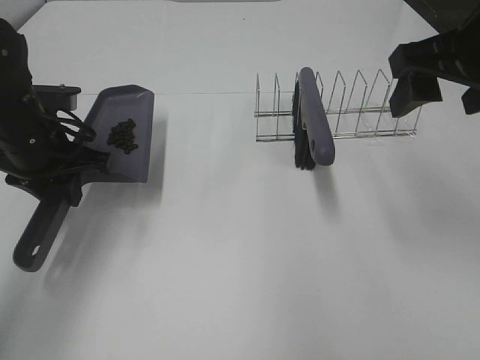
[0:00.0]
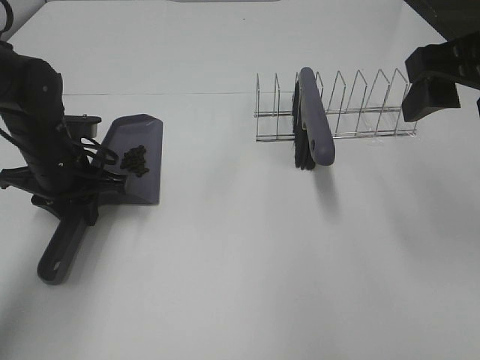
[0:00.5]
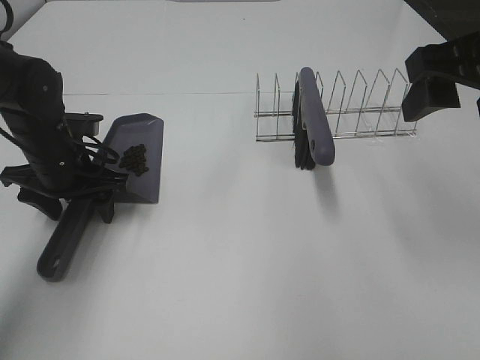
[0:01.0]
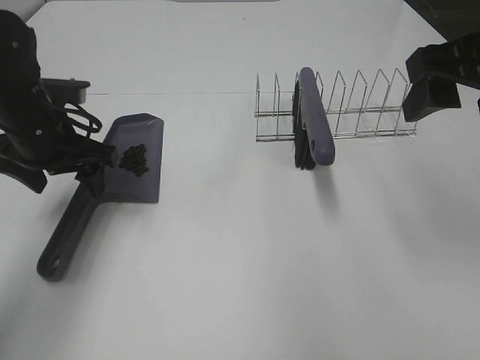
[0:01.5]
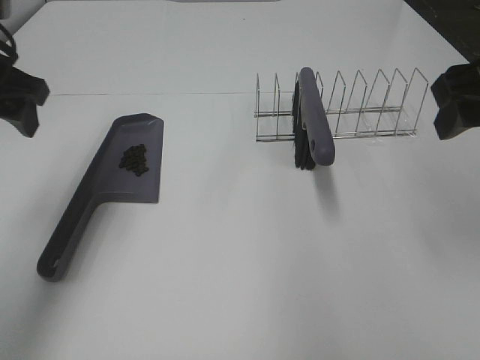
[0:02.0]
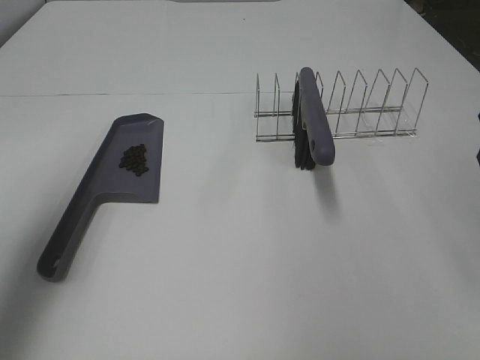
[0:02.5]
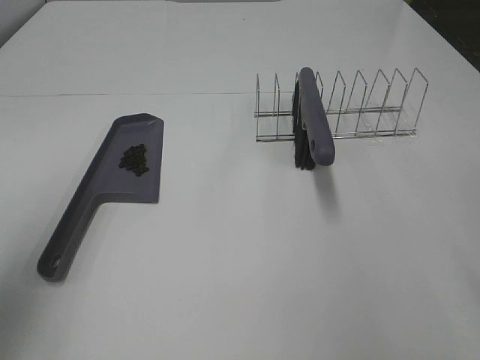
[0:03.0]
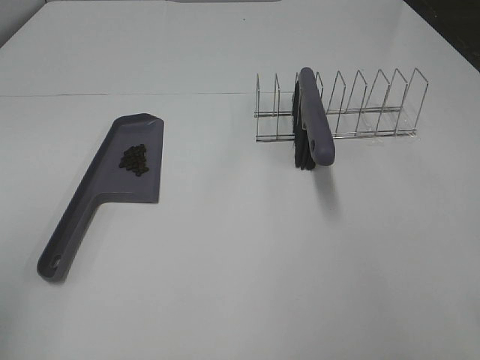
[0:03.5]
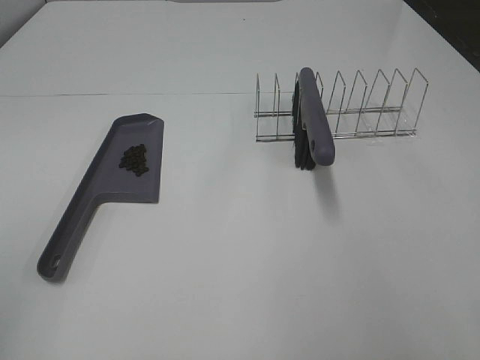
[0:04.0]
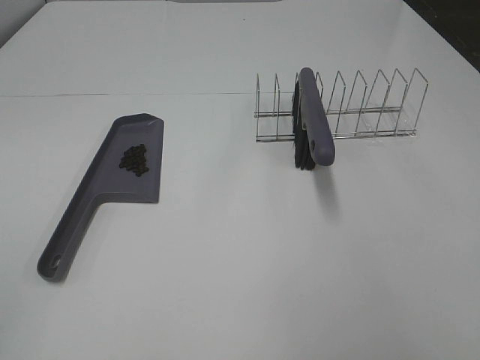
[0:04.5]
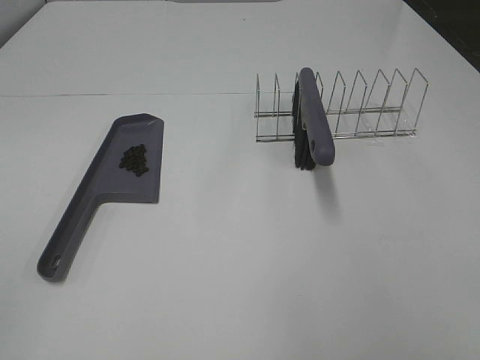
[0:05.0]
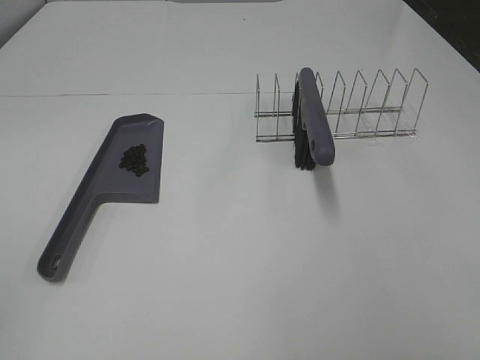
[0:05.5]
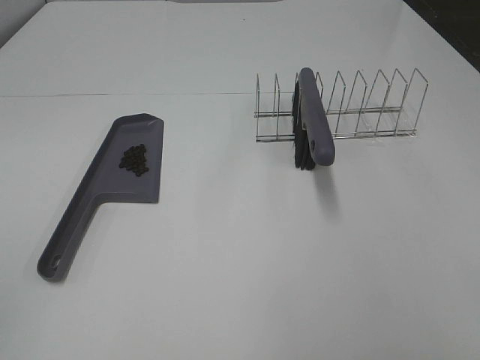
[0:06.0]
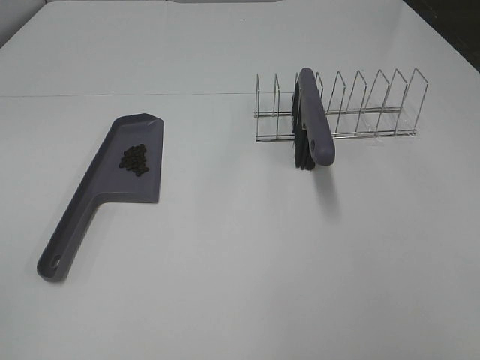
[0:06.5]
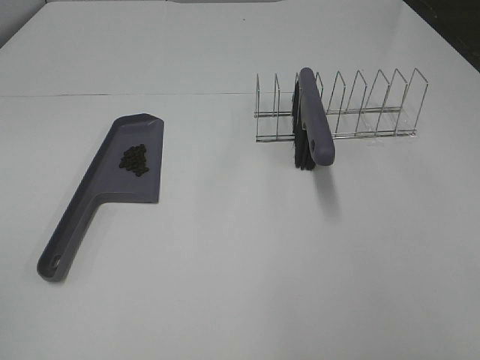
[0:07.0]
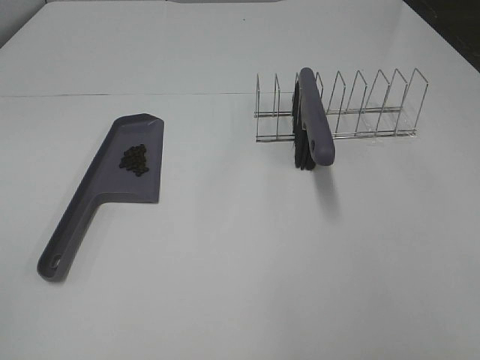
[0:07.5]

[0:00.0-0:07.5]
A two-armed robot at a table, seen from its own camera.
Task of the whole recording: Sweep Coffee Bean.
0:00.0 to 0:02.0: The left gripper travels upward by approximately 10 cm, and opens its fingers.
0:02.0 to 0:04.0: The left gripper heads backward, covering approximately 30 cm. The right gripper is displaced backward by approximately 15 cm.

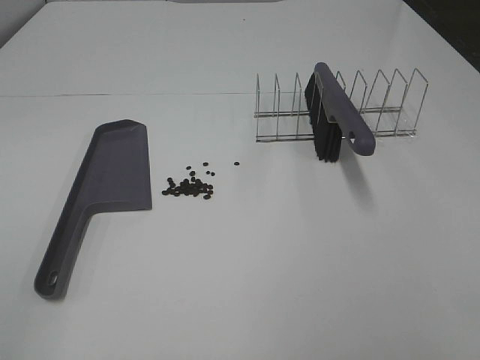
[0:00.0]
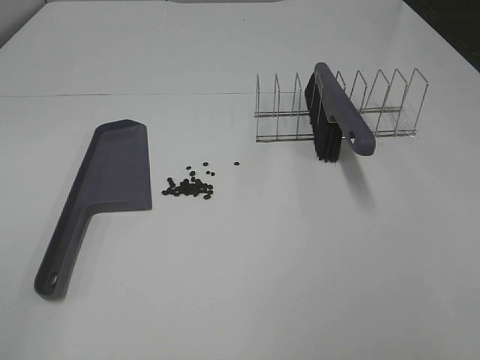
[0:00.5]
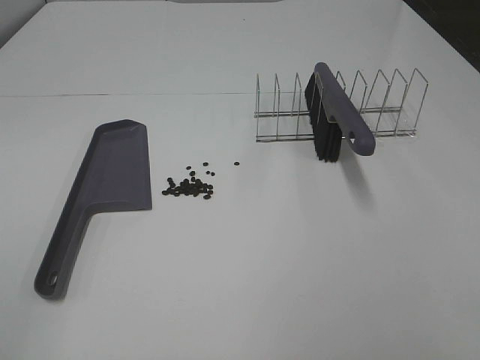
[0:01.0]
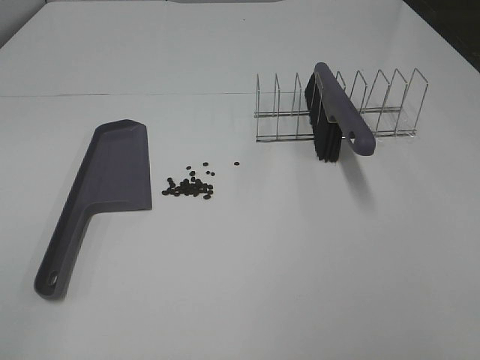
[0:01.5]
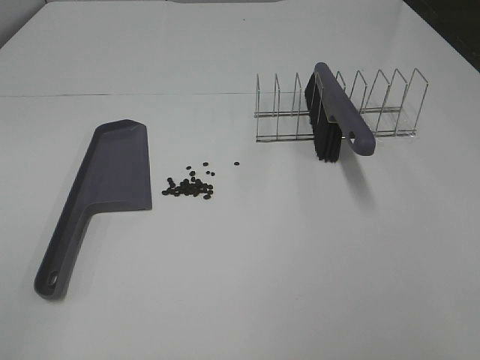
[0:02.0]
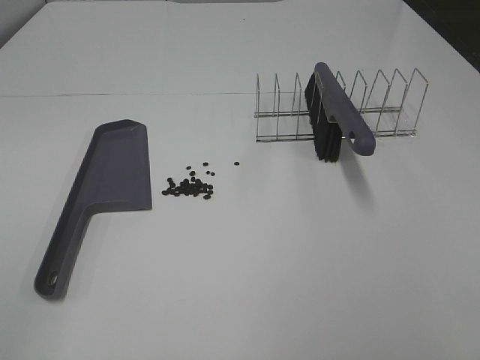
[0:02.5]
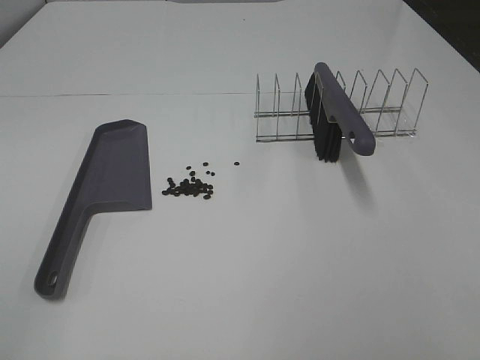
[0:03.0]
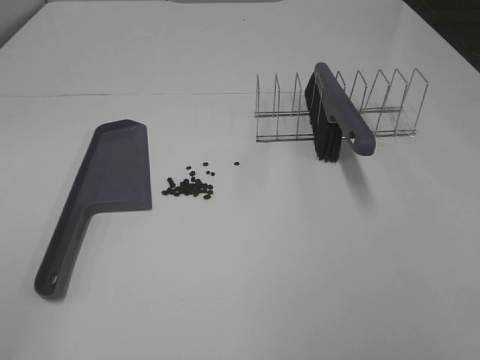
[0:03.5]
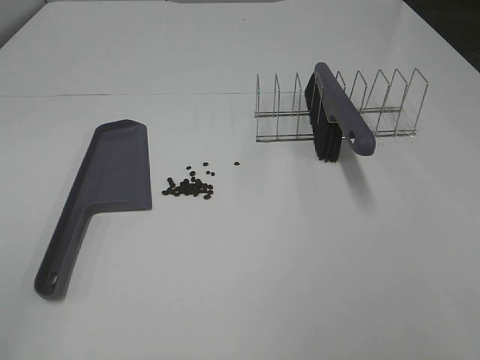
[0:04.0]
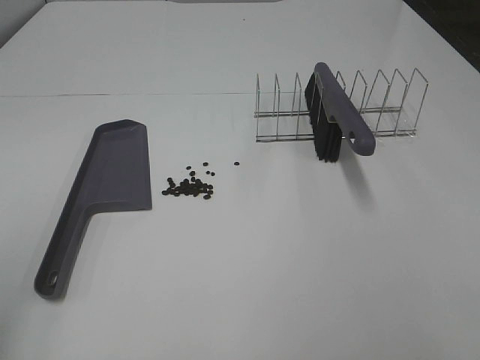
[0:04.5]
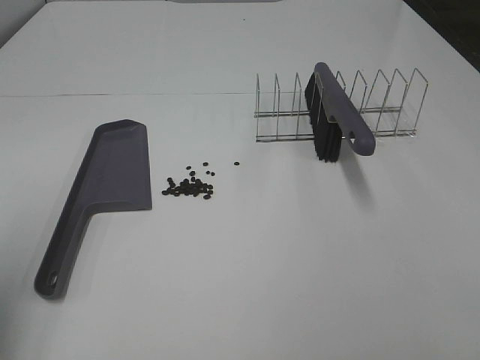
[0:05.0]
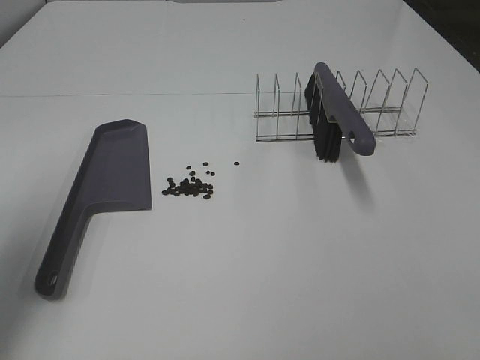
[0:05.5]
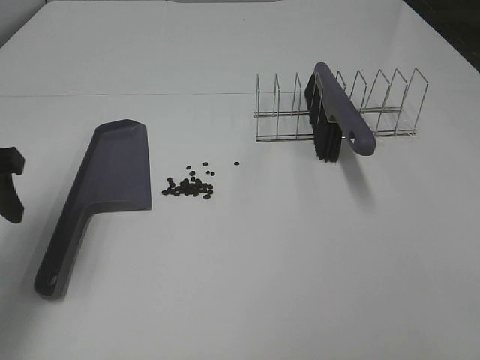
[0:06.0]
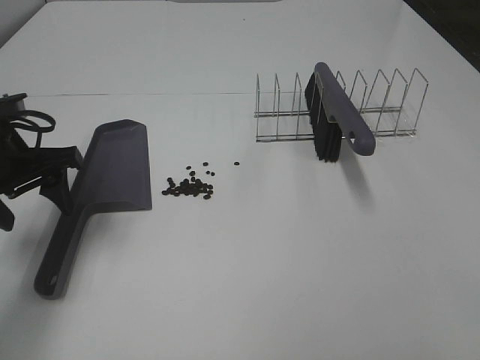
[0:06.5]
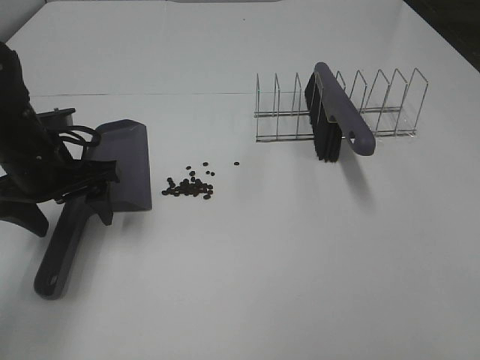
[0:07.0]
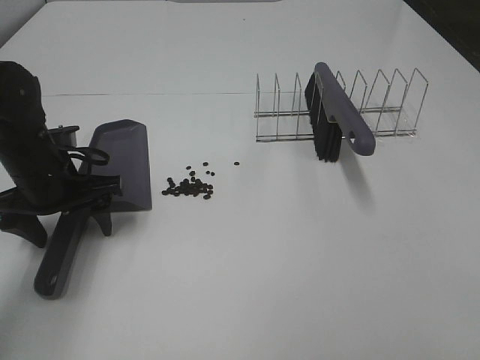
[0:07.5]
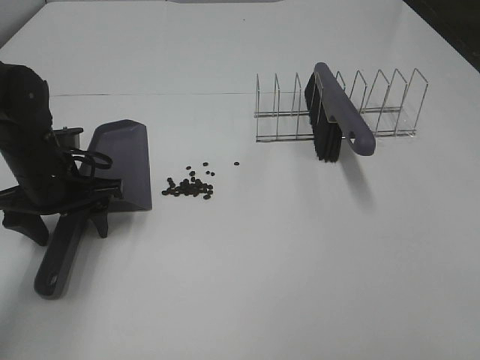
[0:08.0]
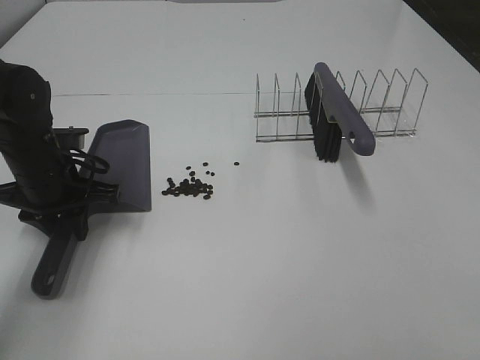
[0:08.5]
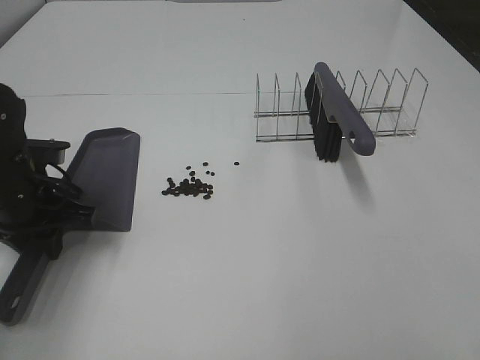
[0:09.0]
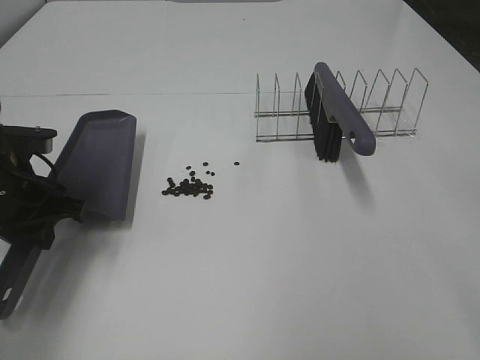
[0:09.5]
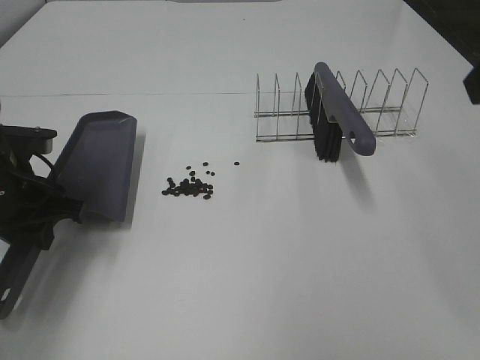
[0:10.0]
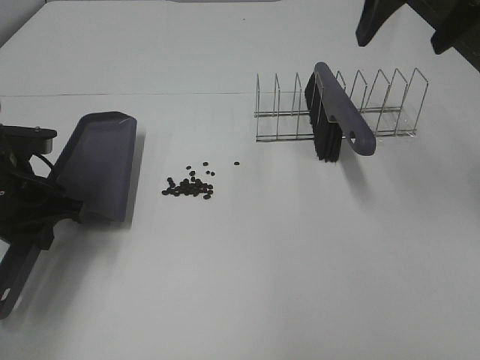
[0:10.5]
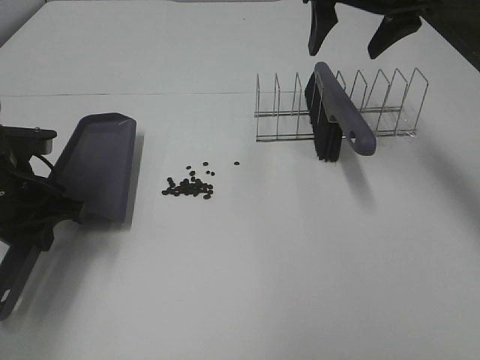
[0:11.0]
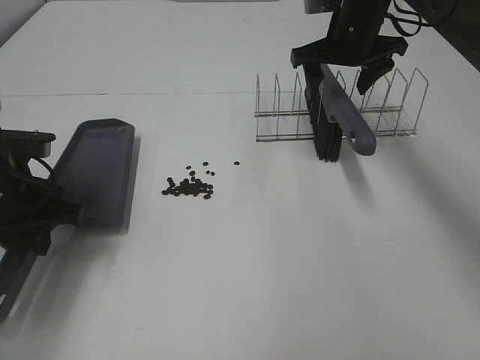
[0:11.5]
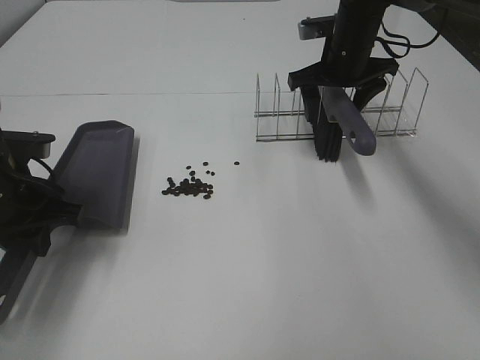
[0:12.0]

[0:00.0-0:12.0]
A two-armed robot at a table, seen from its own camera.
Task of the whole recording: Sweep Coffee Bean.
Step, 0:00.0 to 0:08.5: Left hand: grab the dustpan.
0:00.0 to 0:02.0: Both grippers stay about where they are.
0:04.0 to 0:06.0: The left gripper heads forward, covering approximately 25 cm.
0:06.0 to 0:08.0: The left gripper is displaced downward, forward and to the right by about 15 cm.
0:08.0 to 0:10.0: The left gripper changes place by roughly 5 cm, and closes up.
0:10.0 to 0:12.0: The right gripper travels forward and downward by some 35 cm.

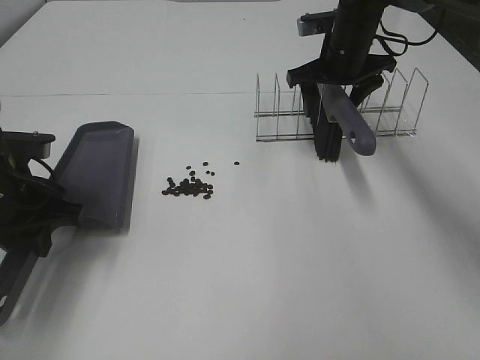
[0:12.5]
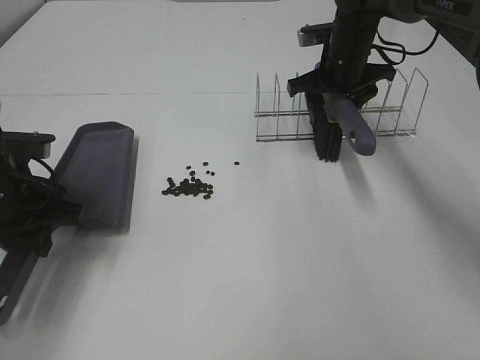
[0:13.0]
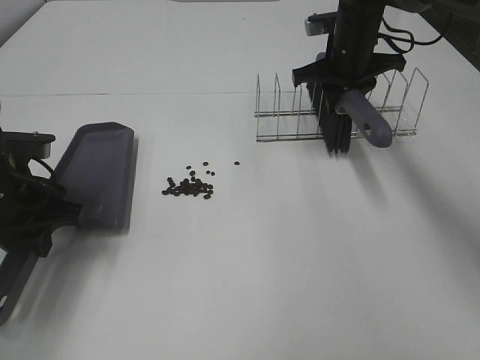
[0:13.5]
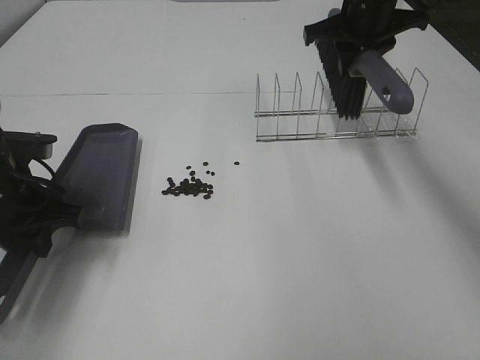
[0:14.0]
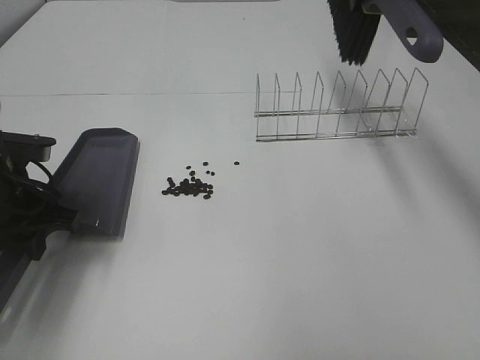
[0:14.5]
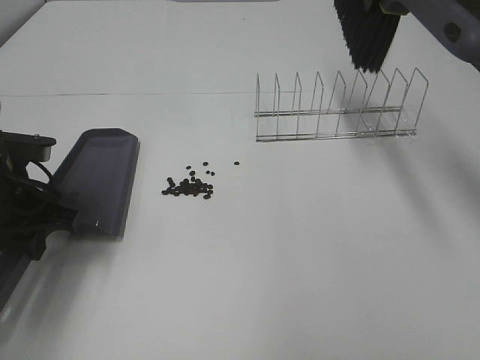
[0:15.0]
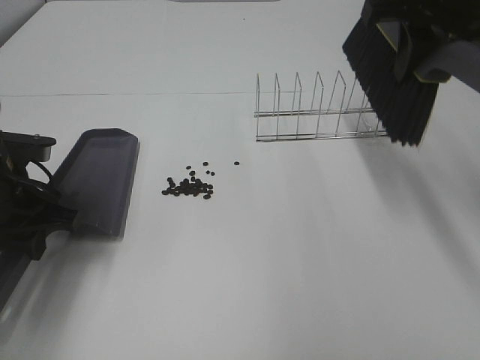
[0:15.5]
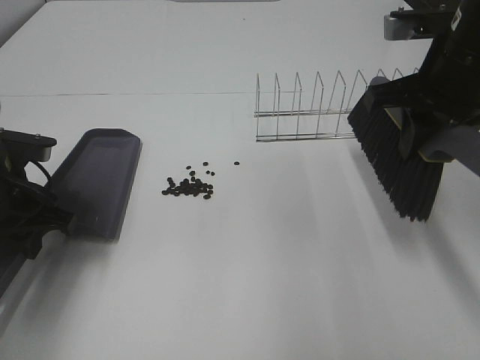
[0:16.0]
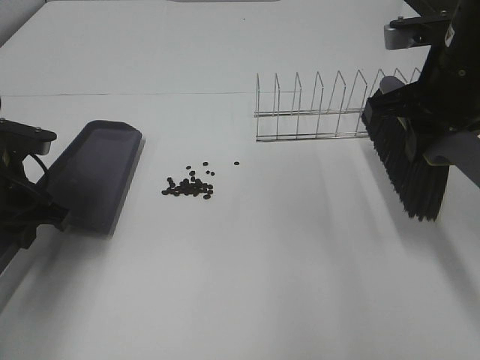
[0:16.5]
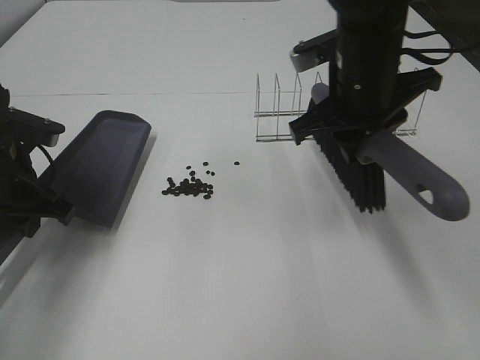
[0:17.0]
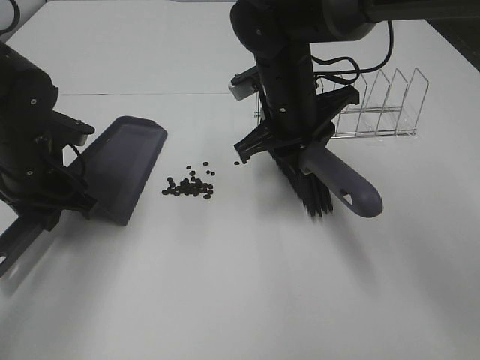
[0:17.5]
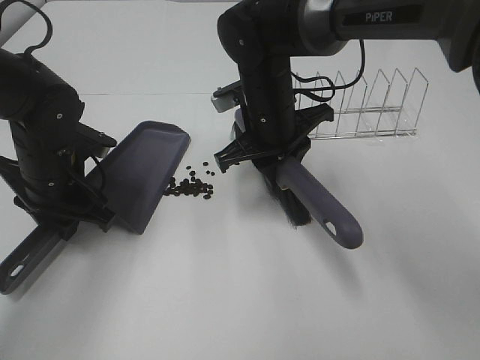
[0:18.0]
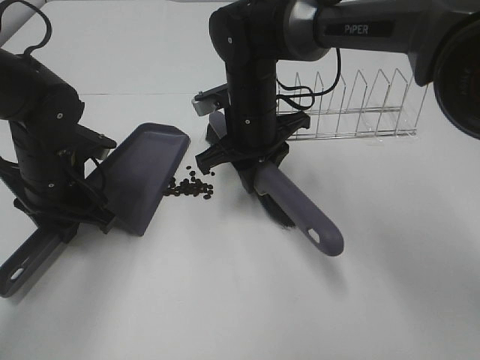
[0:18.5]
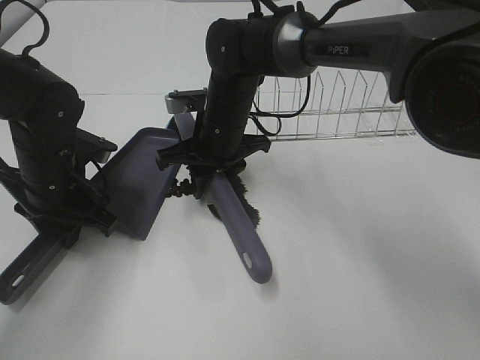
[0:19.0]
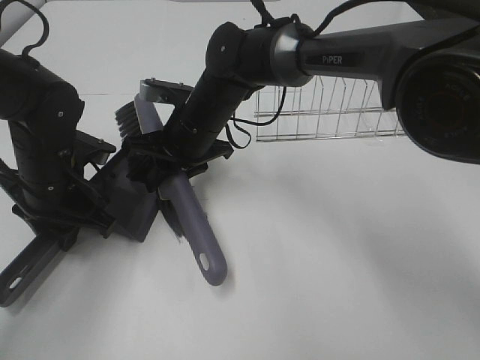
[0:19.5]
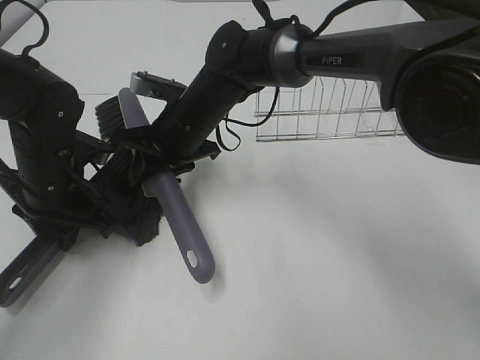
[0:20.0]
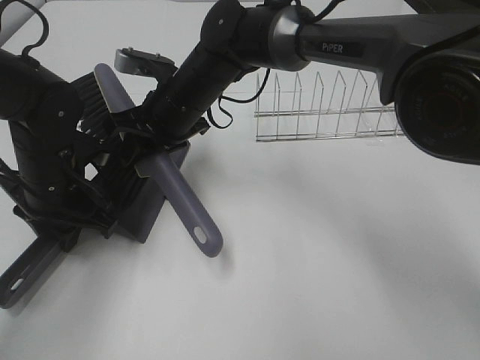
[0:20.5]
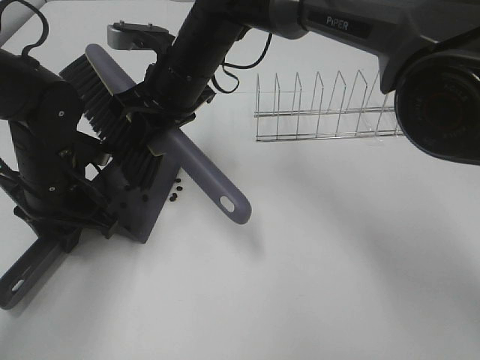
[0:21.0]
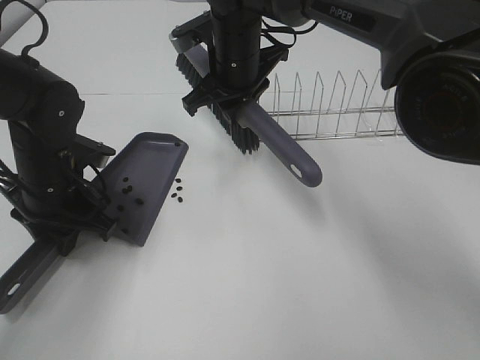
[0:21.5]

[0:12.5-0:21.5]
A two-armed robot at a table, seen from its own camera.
Task of the whole recording: Sweep Coffee Bean.
0:12.5 to 0:14.5: The right gripper travels upward by approximately 15 cm, and closes up.
0:14.5 to 0:17.0: The right gripper goes some 20 cm downward, backward and to the left.
0:17.0 to 0:19.5: The right gripper goes about 20 cm to the left, downward and forward; the left gripper changes place by about 5 cm.
0:19.5 to 0:21.5: The right gripper moves upward, approximately 10 cm.
